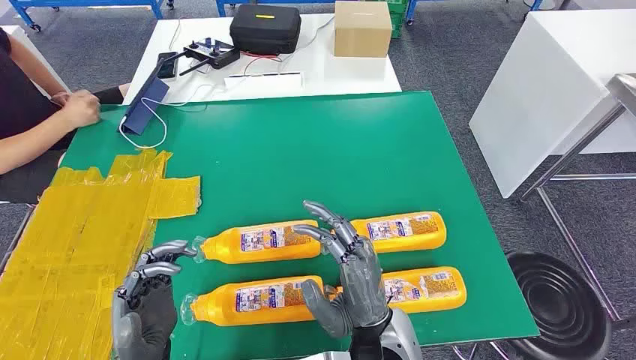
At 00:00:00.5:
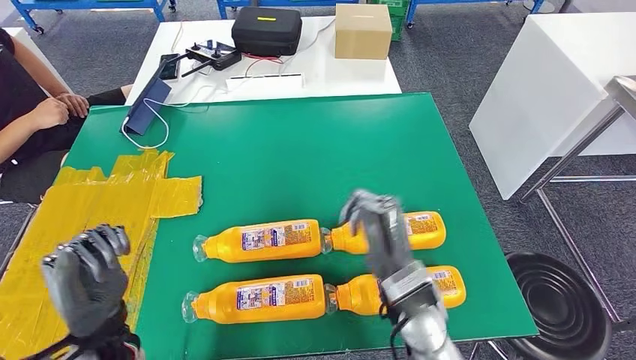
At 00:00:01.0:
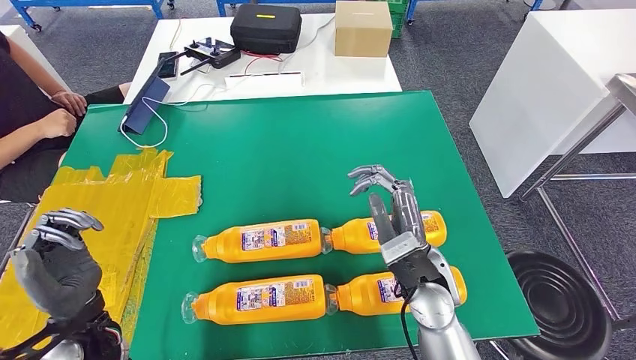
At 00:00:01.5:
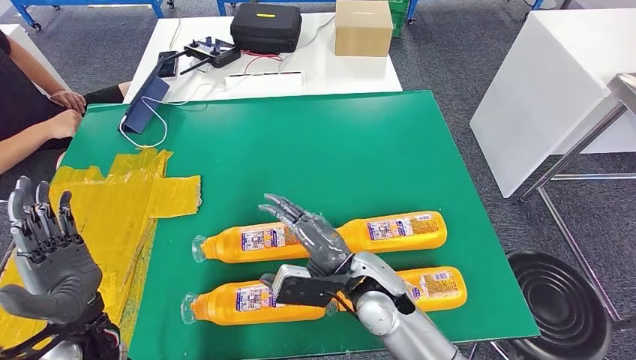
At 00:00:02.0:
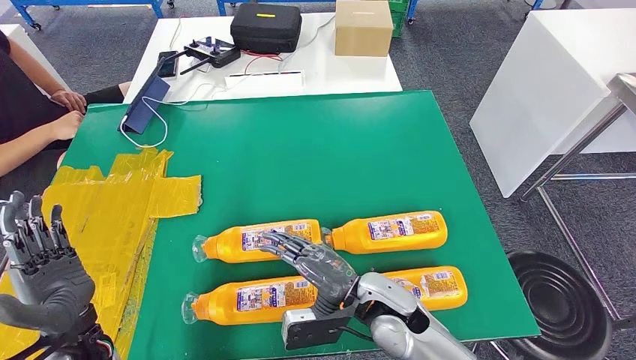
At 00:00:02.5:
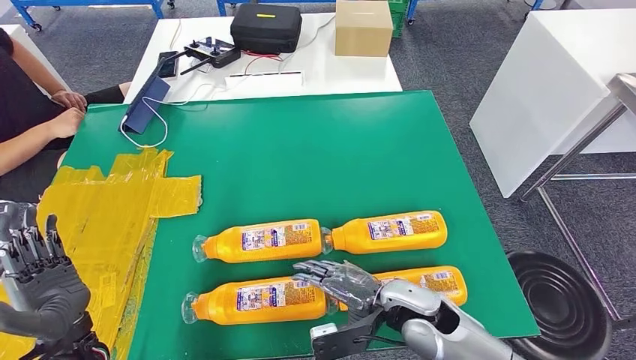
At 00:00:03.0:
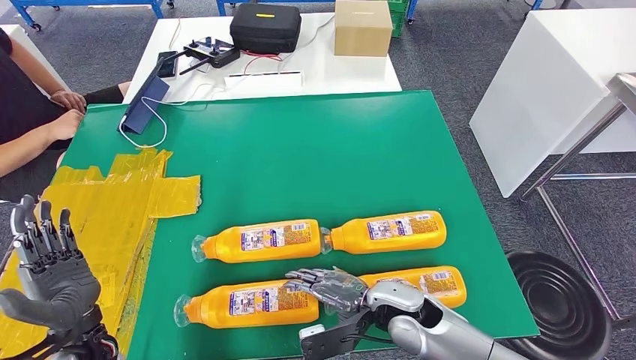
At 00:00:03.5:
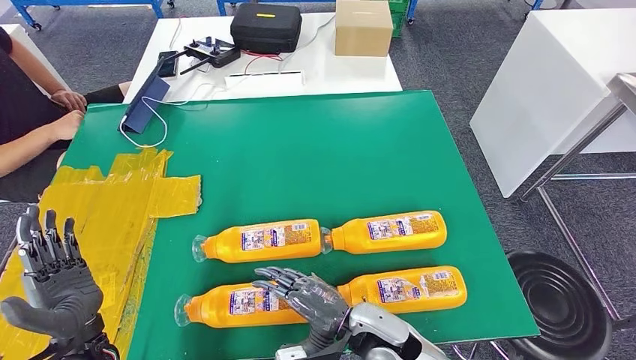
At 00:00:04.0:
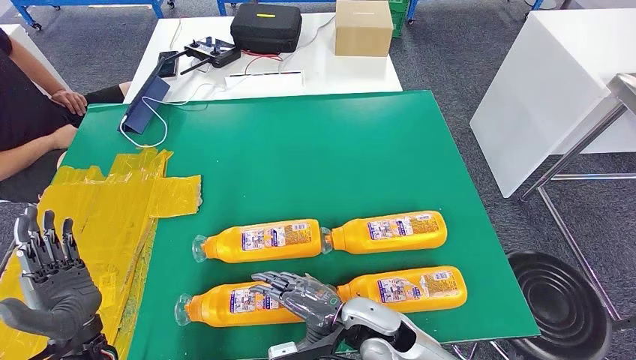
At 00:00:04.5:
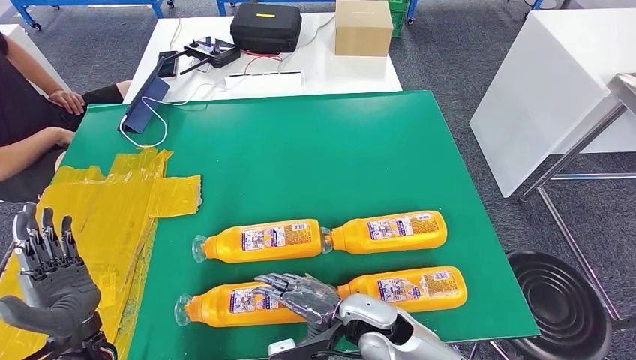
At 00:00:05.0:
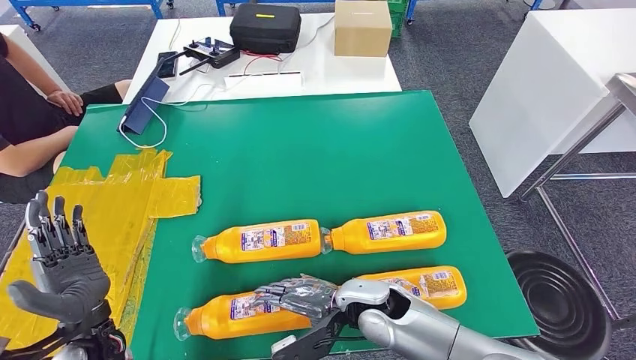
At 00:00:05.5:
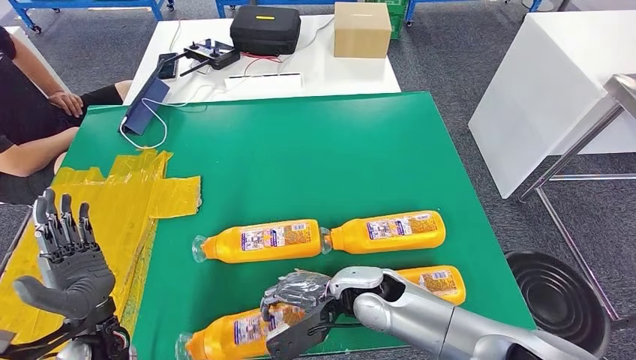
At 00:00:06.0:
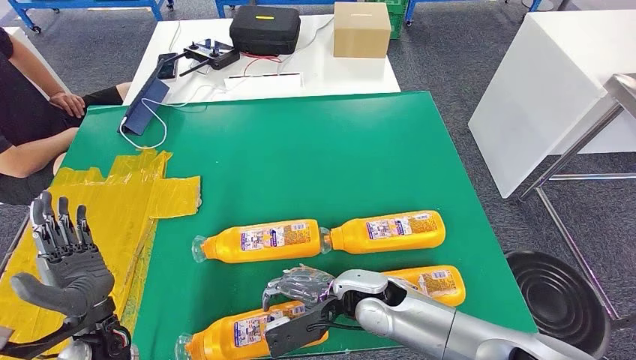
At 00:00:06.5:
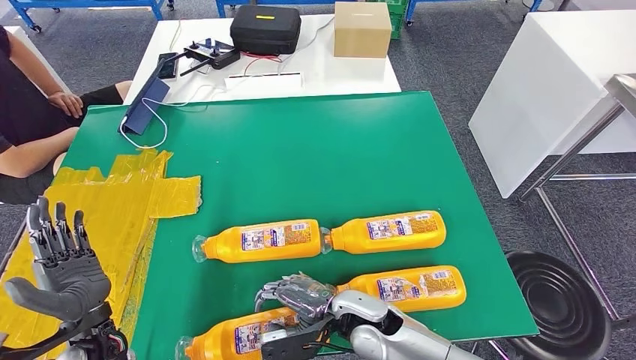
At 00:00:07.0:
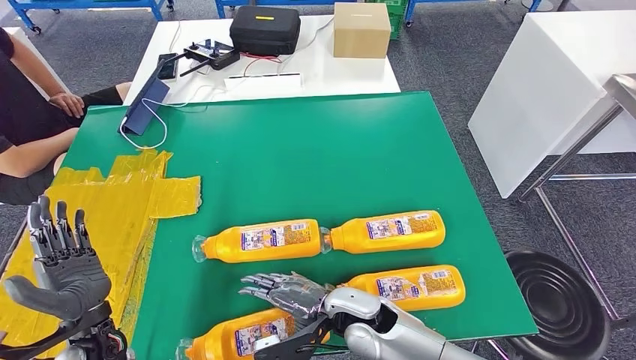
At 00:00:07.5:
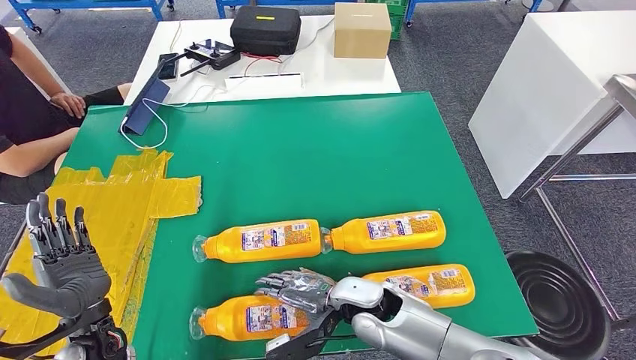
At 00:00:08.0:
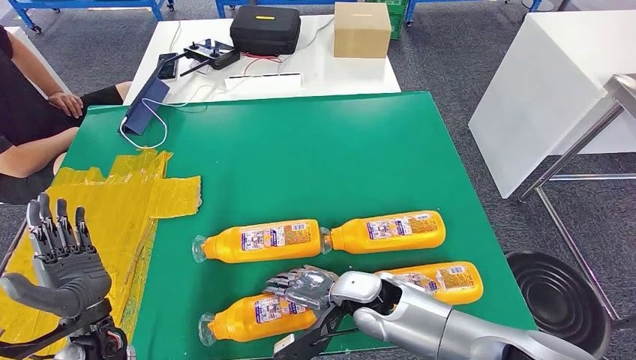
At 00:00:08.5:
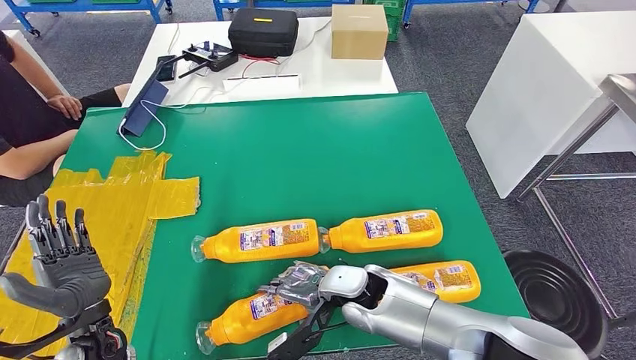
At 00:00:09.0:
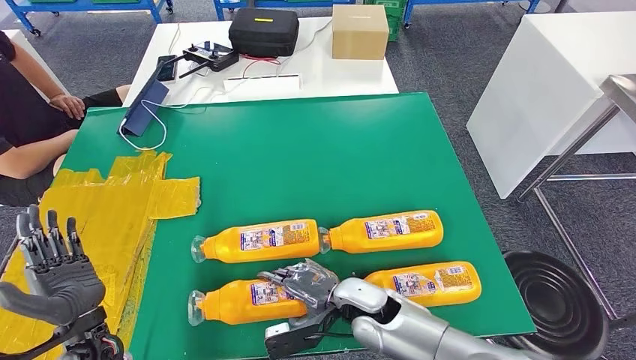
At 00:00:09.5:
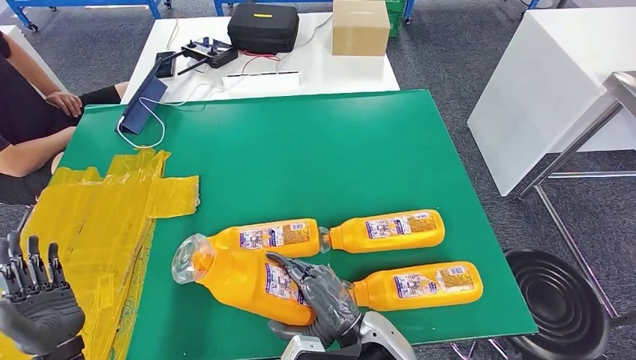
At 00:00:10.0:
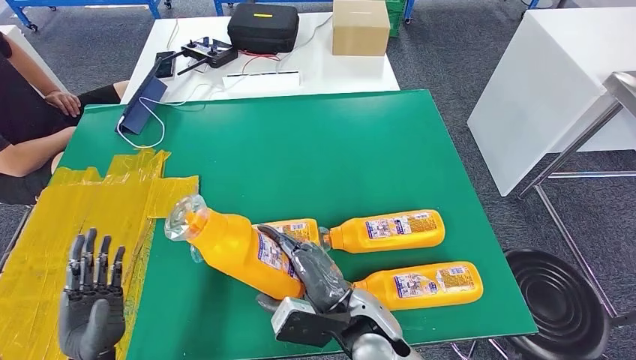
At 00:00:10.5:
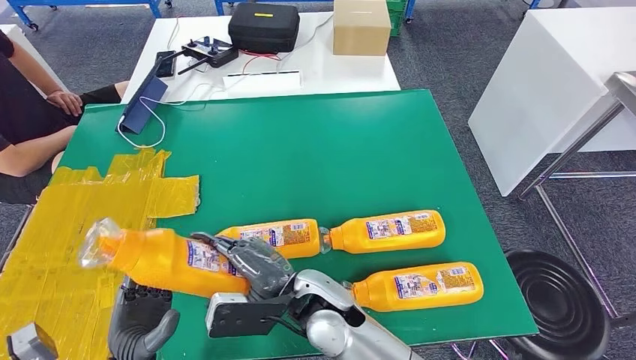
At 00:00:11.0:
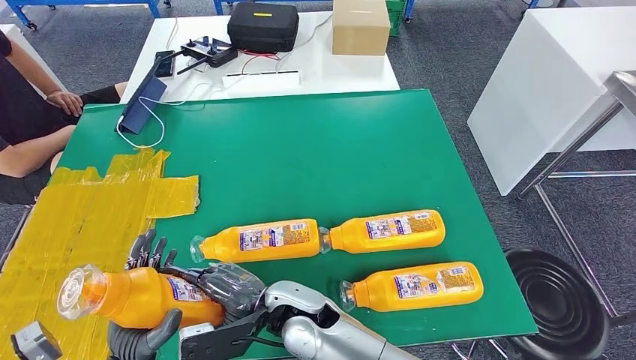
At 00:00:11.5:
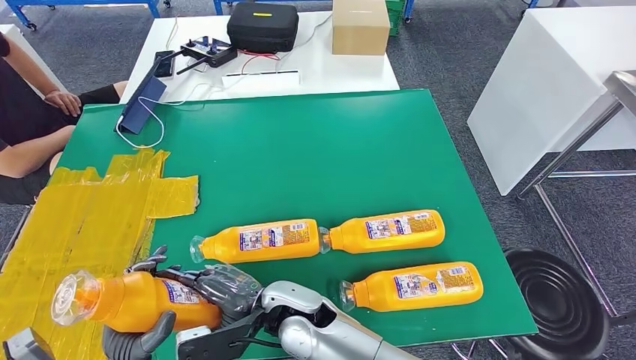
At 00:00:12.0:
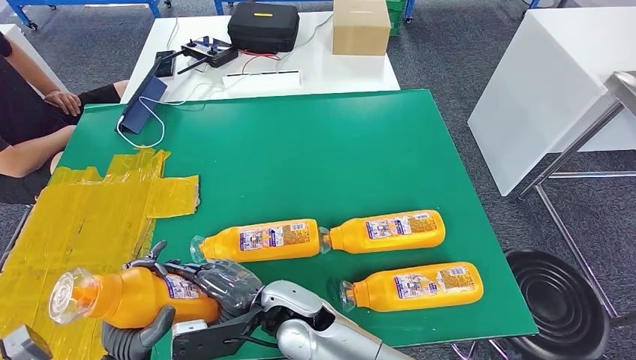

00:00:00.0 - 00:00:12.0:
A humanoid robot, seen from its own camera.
Step, 00:00:00.0 - 00:00:09.0: Take the fast-moving consumer goods bottle from the table.
00:00:10.0 - 00:00:12.0: The right hand is displaced to the left by some 10 cm.

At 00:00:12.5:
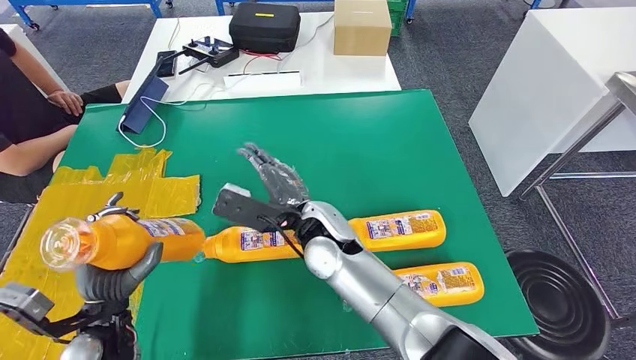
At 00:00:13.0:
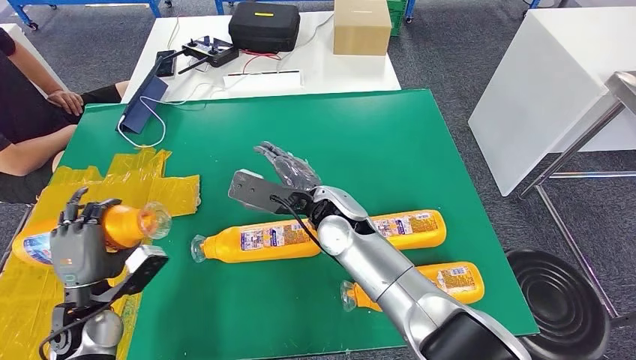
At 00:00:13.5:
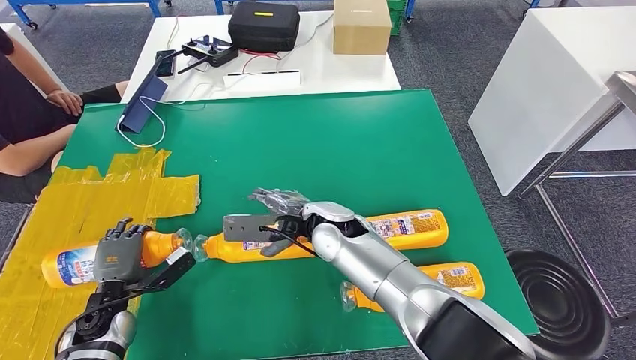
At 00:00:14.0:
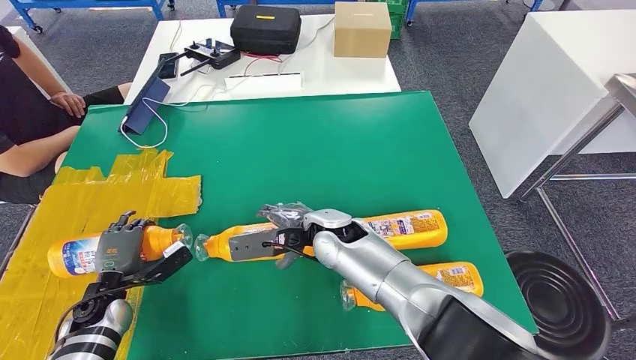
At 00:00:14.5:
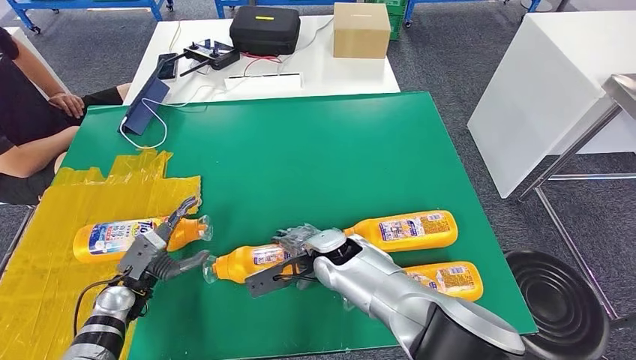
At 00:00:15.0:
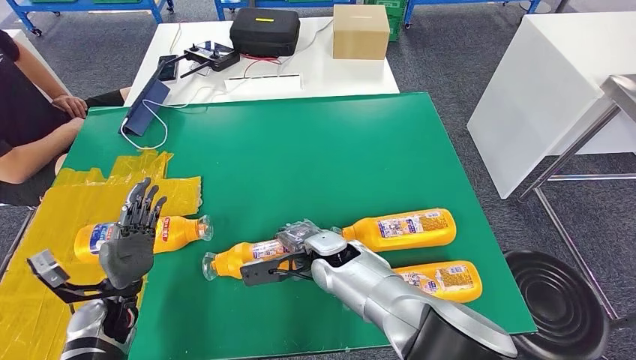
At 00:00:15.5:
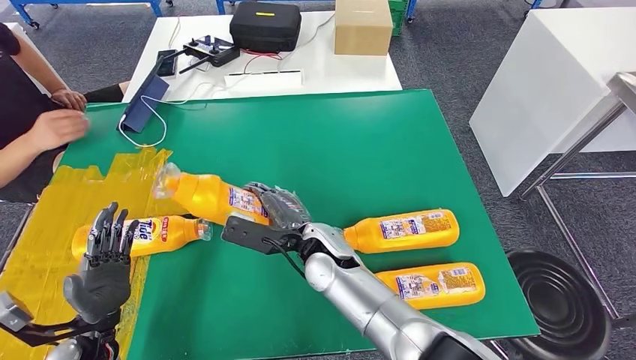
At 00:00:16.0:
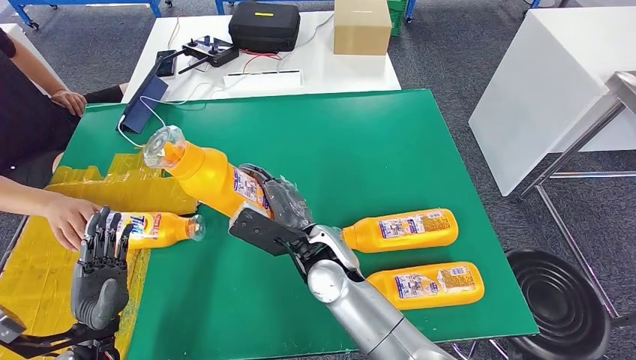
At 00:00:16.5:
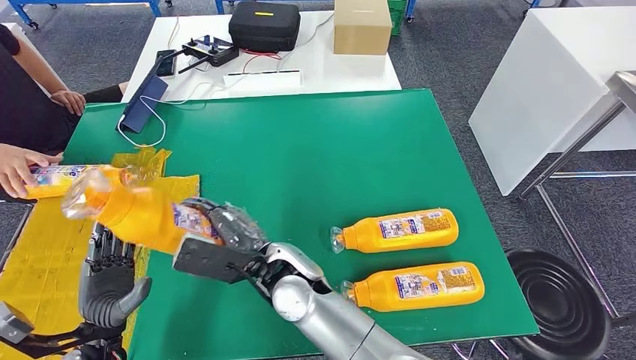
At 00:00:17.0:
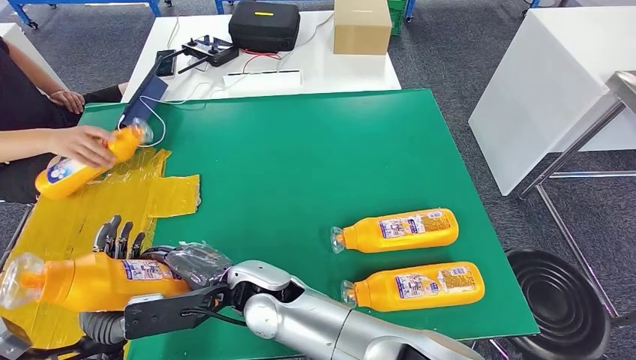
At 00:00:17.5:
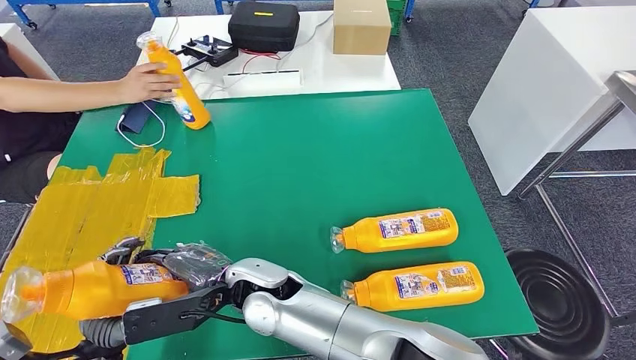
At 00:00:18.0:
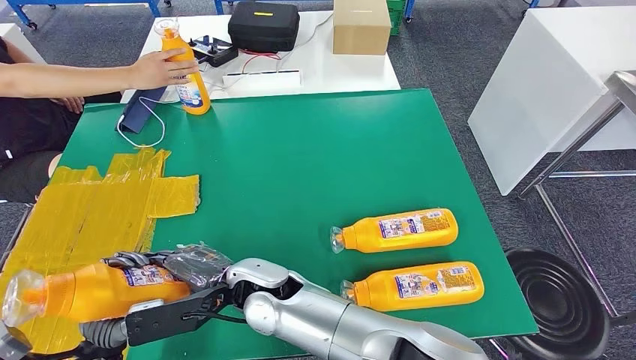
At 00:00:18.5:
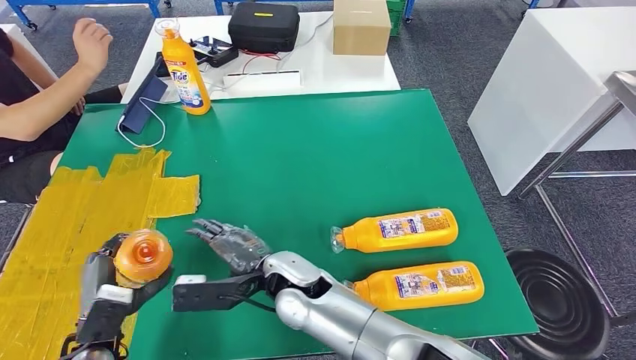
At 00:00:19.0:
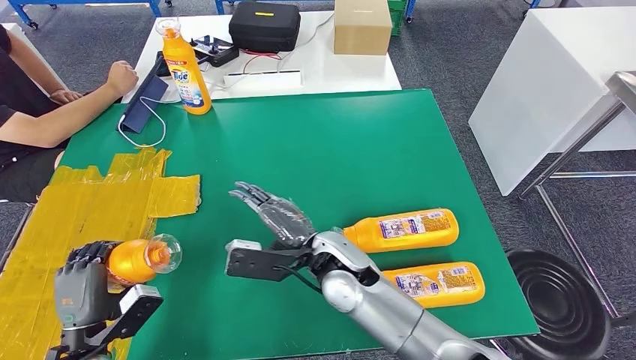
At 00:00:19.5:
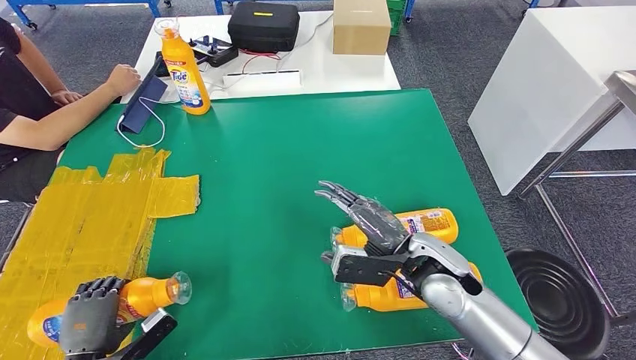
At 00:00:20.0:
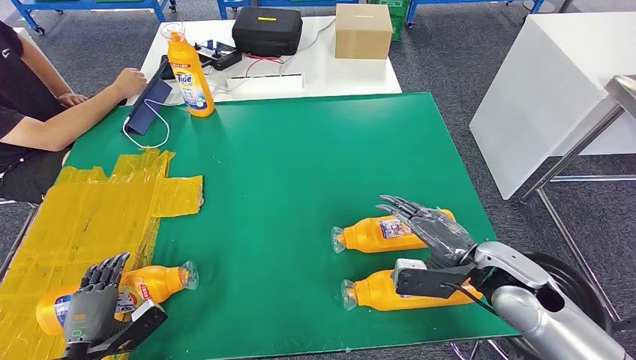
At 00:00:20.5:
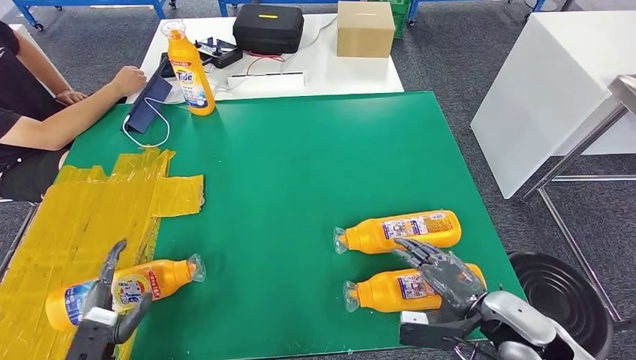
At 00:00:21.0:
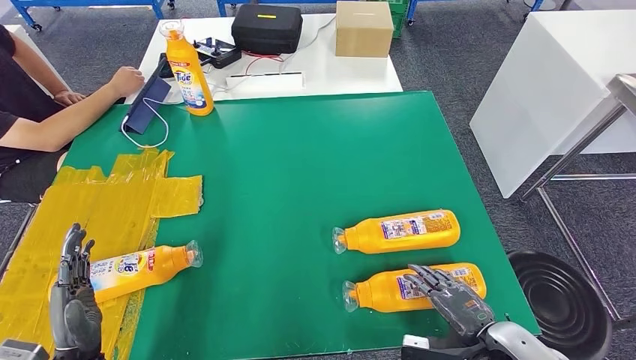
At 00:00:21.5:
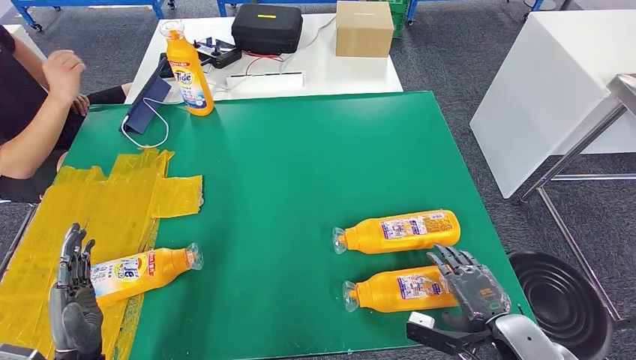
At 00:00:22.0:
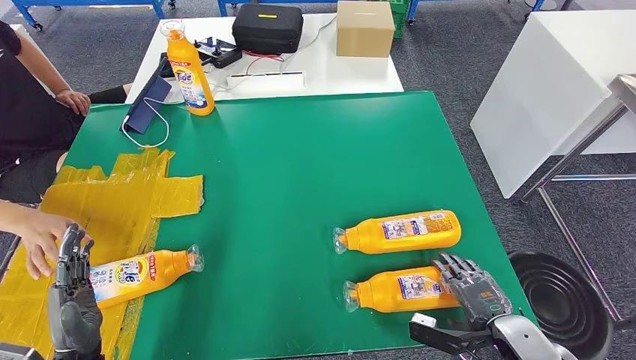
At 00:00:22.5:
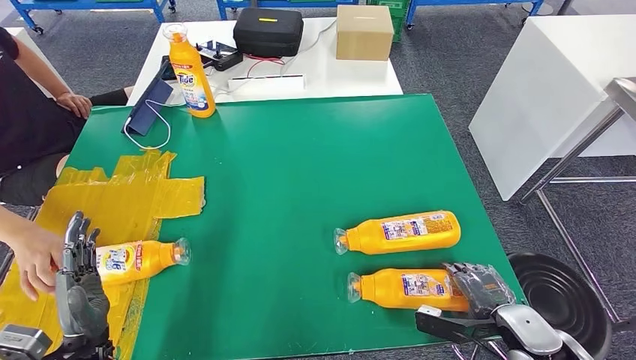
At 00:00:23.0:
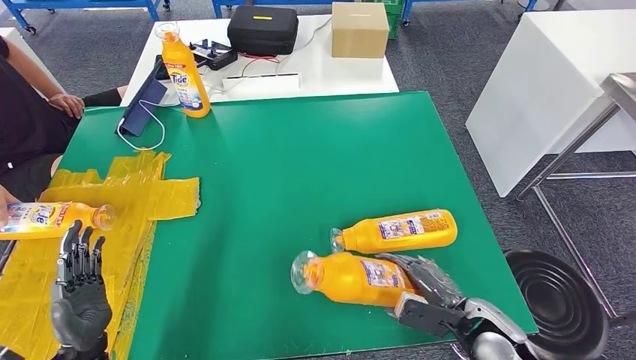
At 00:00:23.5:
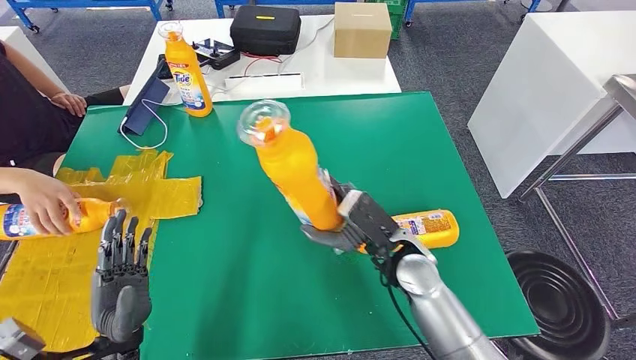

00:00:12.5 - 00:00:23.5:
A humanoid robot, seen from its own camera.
Step, 00:00:15.0 - 00:00:17.5: Pick up the fast-moving consumer goods bottle from the table.
Step, 00:00:18.0 - 00:00:20.5: Flip the fast-moving consumer goods bottle to the front side.
